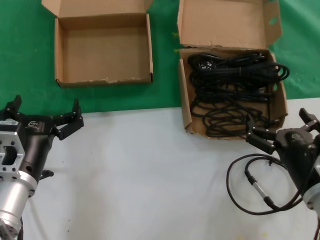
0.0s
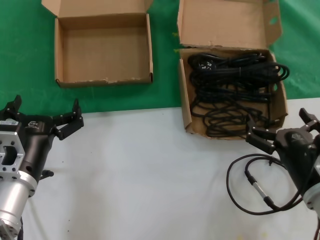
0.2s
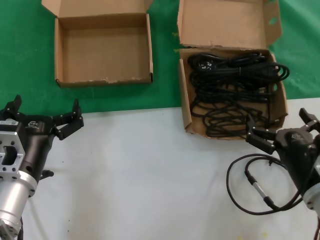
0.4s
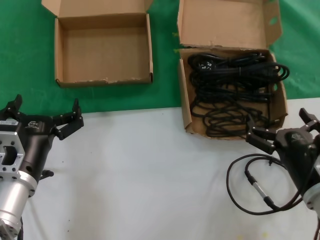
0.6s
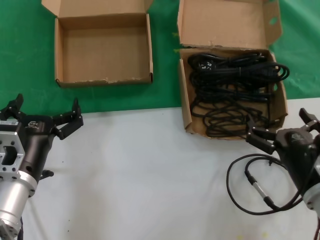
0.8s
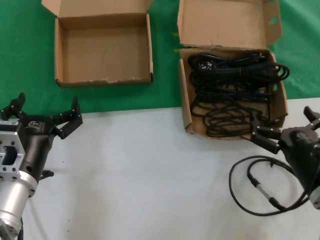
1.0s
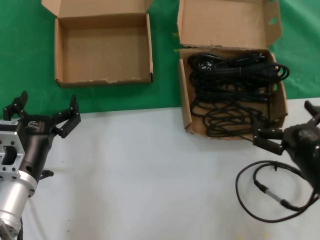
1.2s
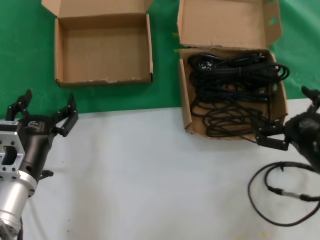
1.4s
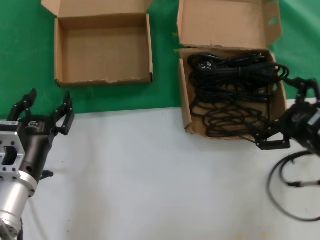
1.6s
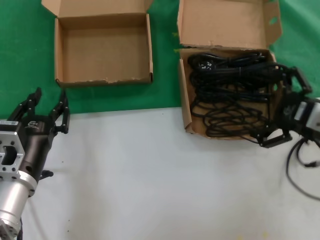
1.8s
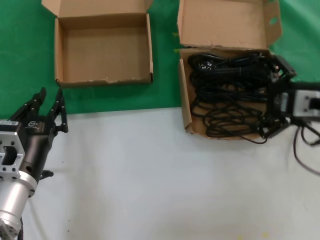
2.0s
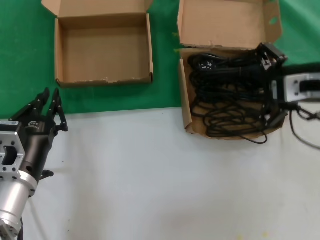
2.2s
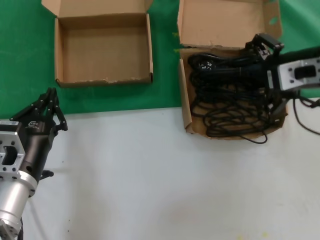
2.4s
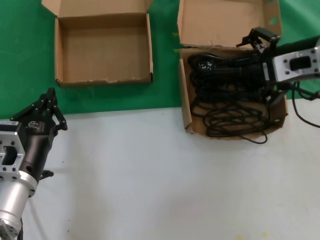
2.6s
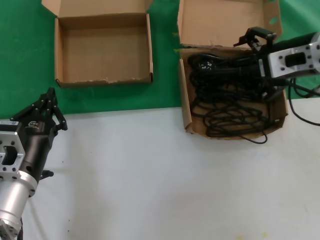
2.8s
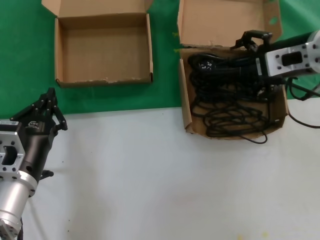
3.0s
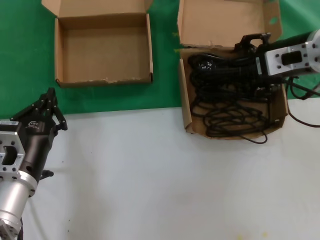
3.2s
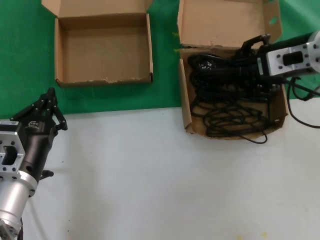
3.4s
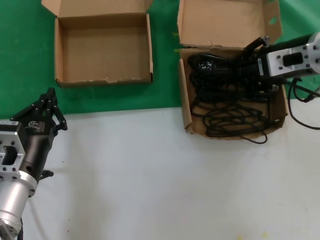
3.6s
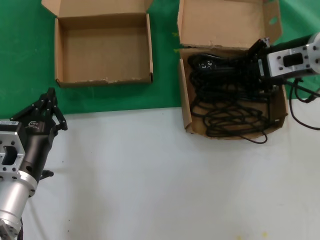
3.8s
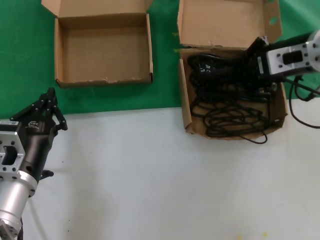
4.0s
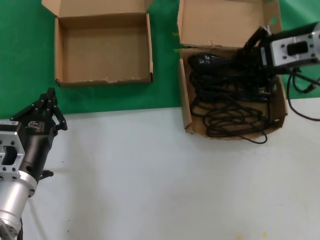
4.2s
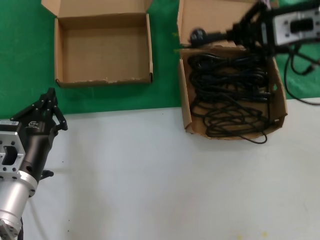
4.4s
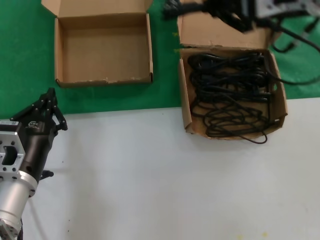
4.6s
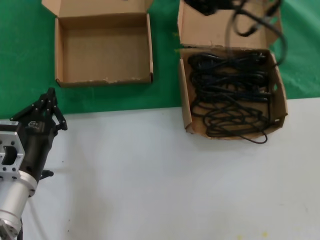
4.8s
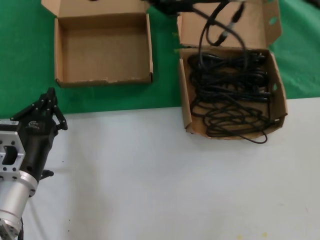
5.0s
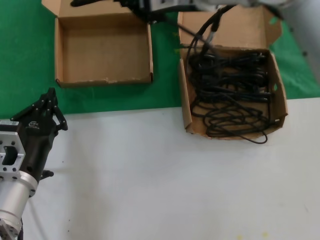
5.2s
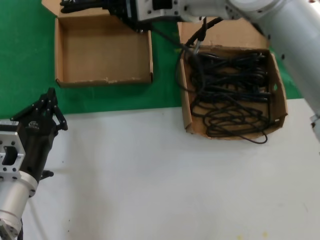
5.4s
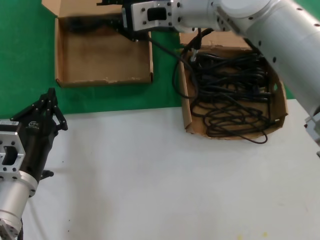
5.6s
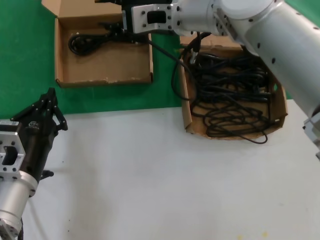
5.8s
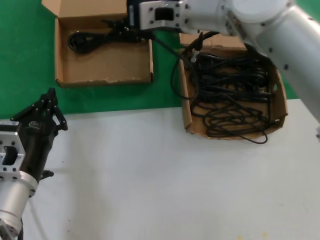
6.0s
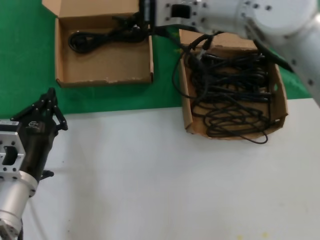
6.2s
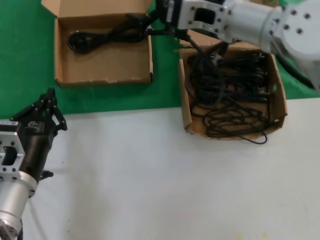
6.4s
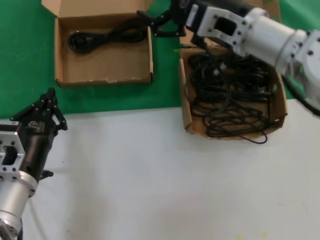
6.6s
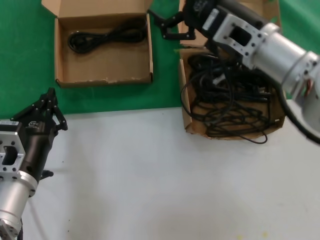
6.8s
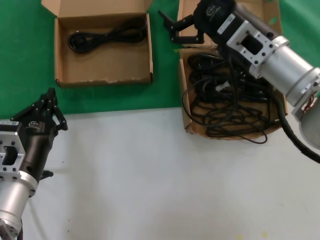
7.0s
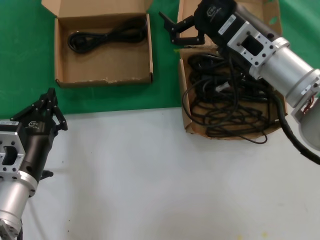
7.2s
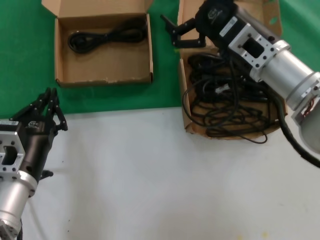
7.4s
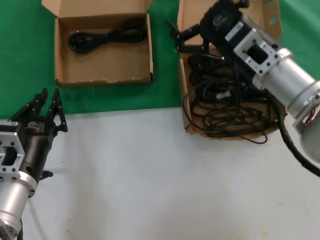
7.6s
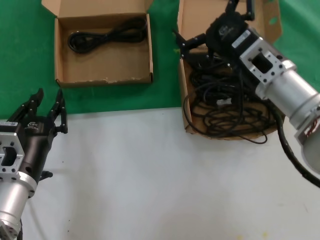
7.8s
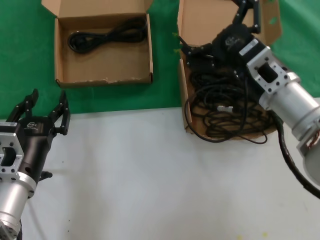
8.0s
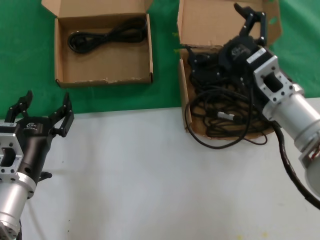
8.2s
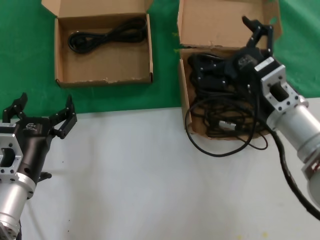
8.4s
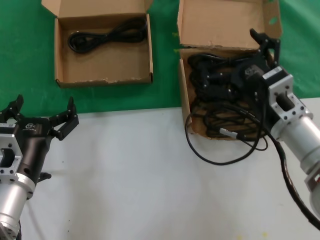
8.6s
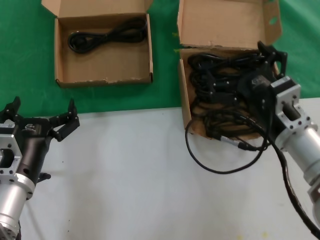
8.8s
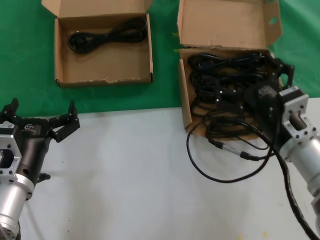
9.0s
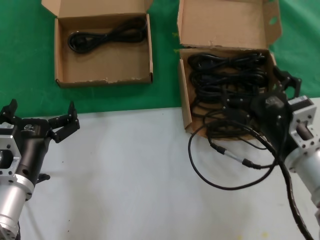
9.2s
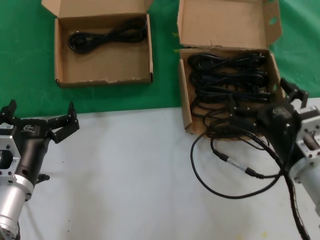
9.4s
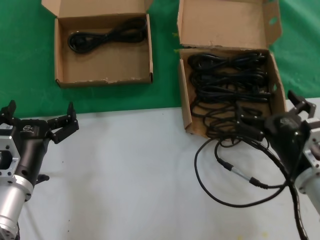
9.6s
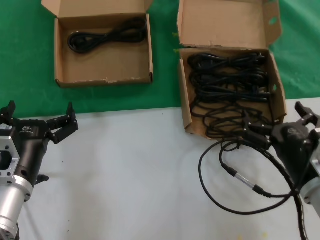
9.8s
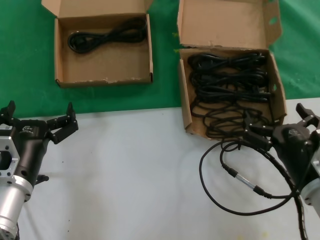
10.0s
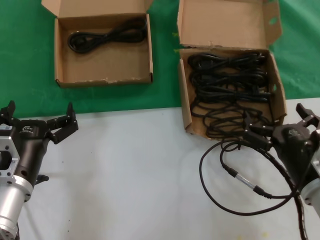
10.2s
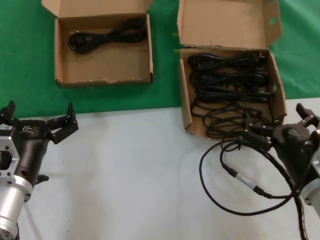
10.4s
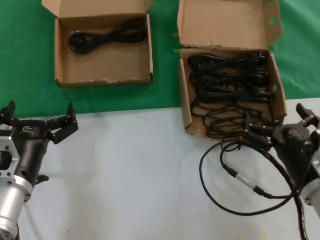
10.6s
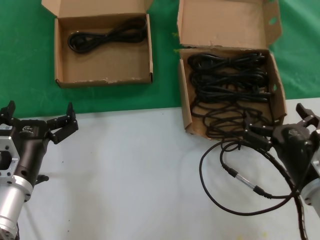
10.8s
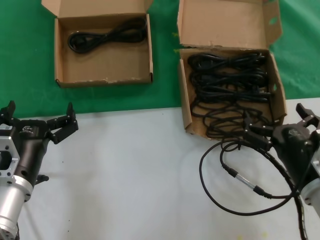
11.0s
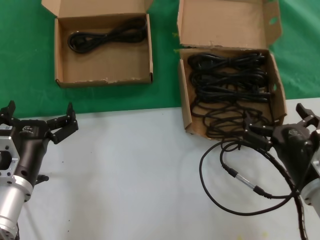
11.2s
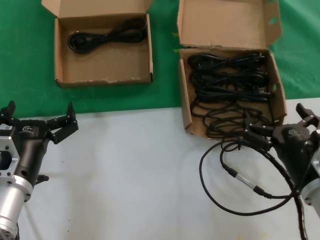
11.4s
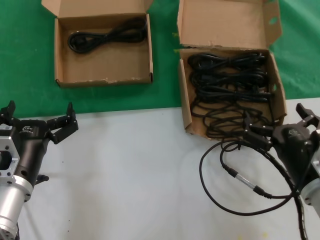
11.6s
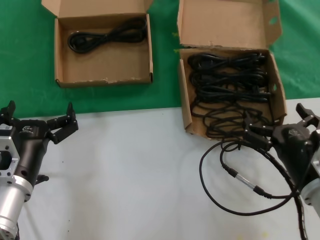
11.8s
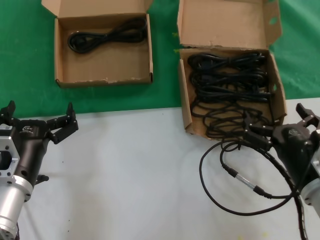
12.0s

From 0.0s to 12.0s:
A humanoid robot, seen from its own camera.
Task of the whole recording: take the parts from the box containing them and put them into an empty box.
Step, from 0.0s to 3.8s: Grasp the data cable.
Step, from 4.0s to 5.6s: Place the data cable in the another box.
From 0.0s to 1.6s: The right hand travels upward and to the right by approximately 10 cm.
From 1.6s to 3.0s: The right hand goes some 20 cm upward and forward.
From 3.0s to 4.4s: The right hand is displaced upward by roughly 5 cm.
From 4.4s to 6.0s: The right hand heads to the left and forward, covering roughly 20 cm.
From 6.0s to 7.6s: The right hand heads to the right, backward and downward, covering roughly 20 cm.
From 7.6s to 9.0s: The right hand is displaced downward and backward by about 15 cm.
From 9.0s to 10.4s: The right hand goes about 5 cm backward.
From 10.4s to 12.0s: The two hands keep their place.

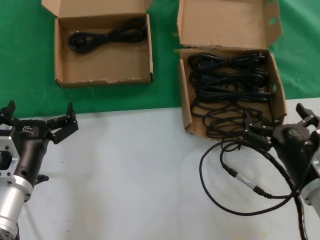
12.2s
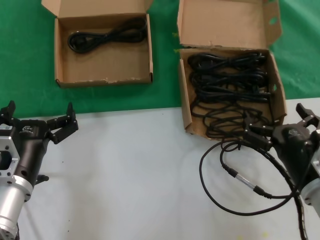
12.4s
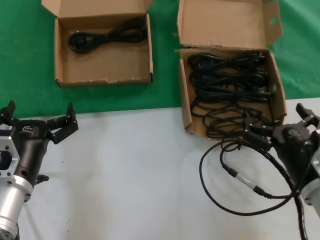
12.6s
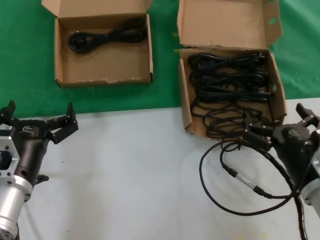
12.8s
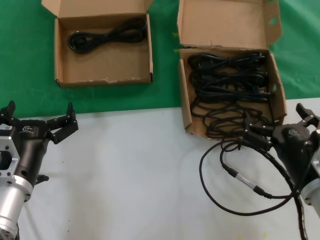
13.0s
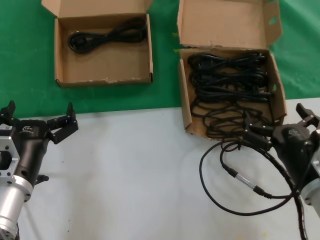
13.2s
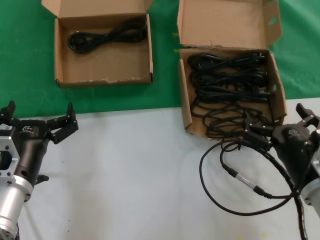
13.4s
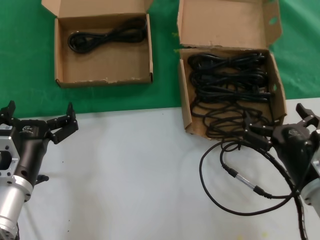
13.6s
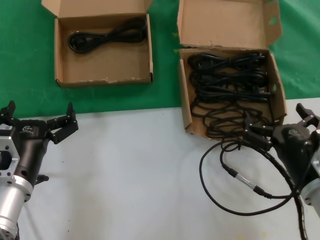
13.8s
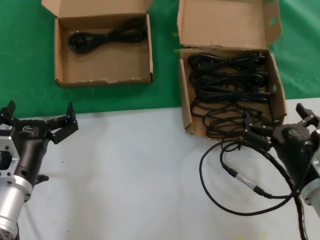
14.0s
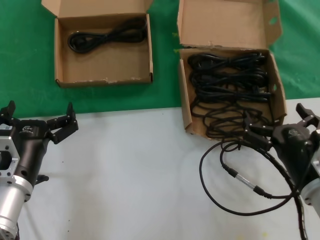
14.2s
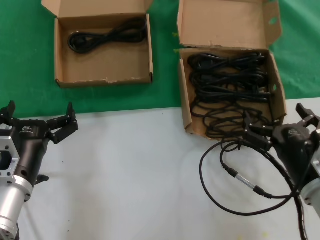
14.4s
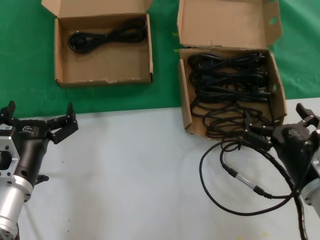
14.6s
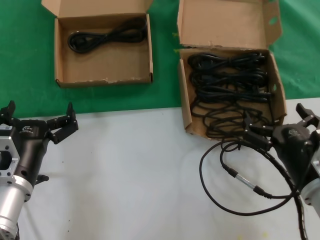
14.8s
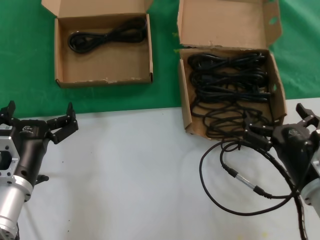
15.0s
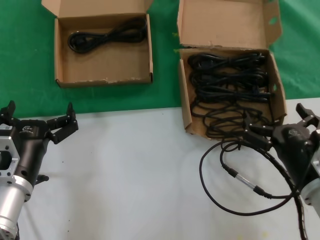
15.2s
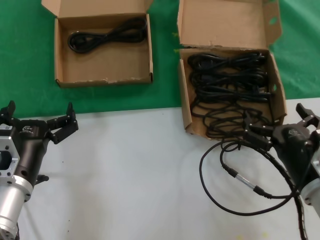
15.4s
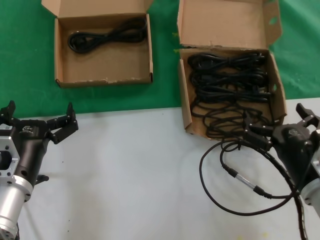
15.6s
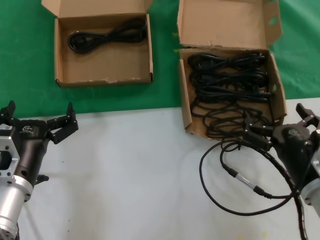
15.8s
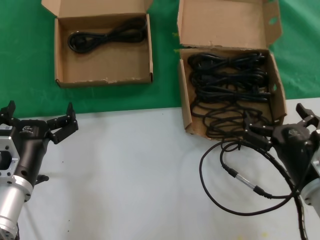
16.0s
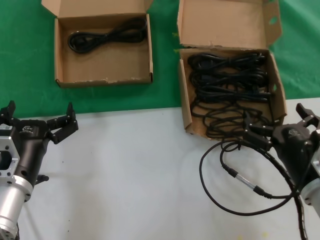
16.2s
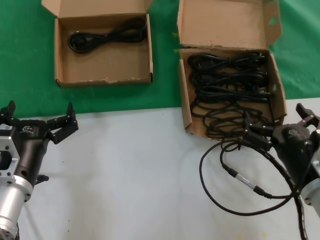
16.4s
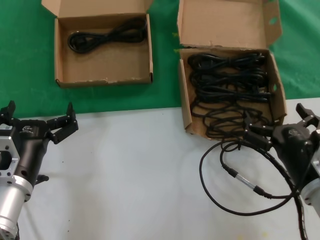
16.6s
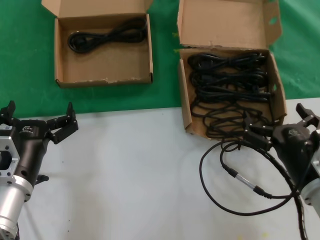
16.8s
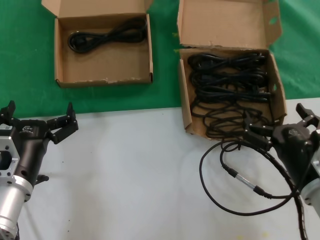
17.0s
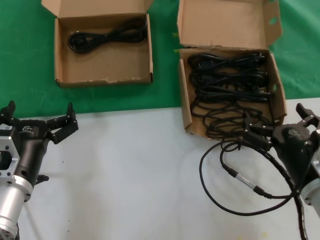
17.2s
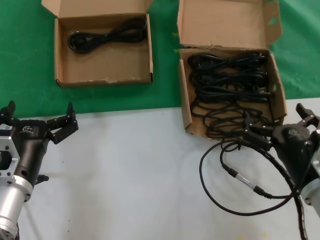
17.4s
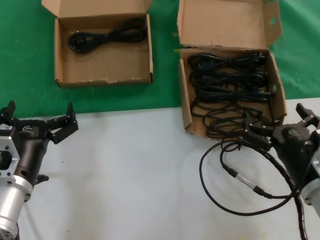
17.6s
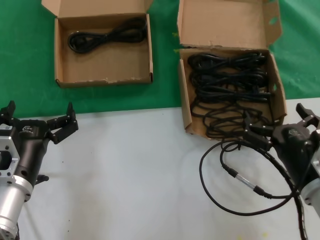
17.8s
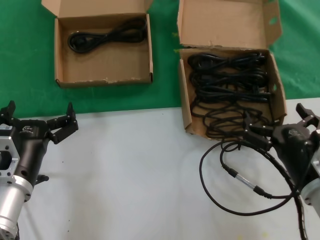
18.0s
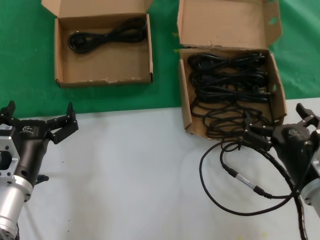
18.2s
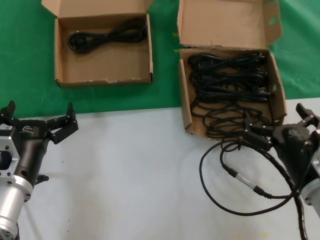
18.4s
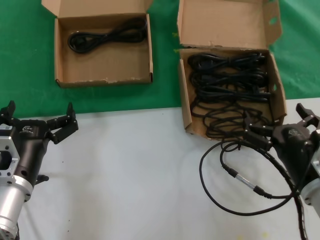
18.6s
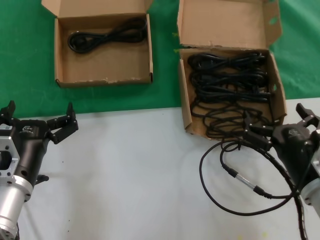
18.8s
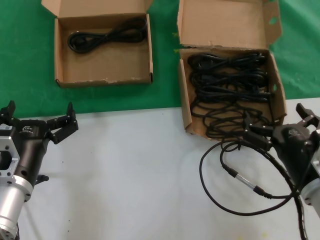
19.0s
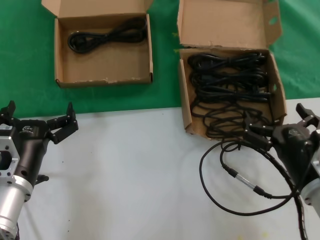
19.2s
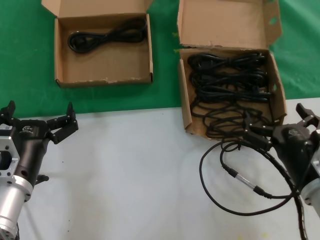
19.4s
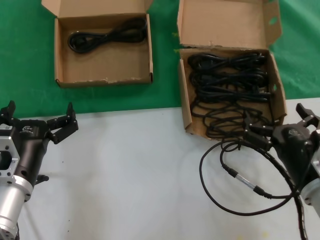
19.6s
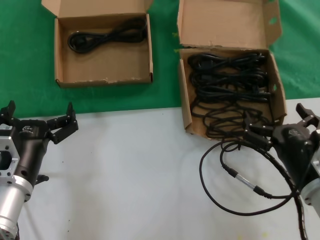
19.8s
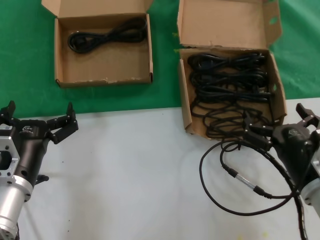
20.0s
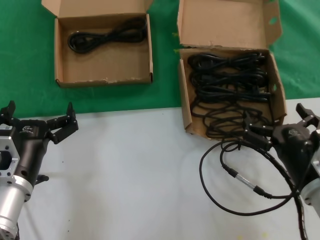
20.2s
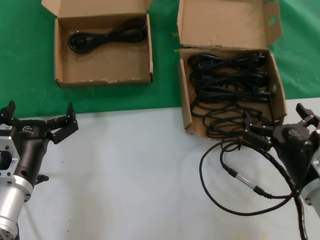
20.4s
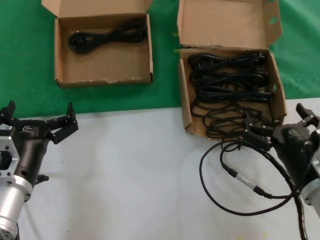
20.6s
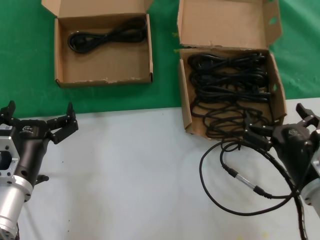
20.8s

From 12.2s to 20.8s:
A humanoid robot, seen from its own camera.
Task of the whole recording: take the parts from the box containing them and put them into an empty box.
From 12.2s to 20.8s: Both hands stay put.
